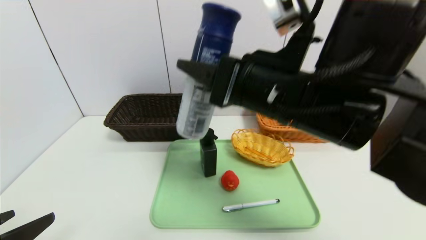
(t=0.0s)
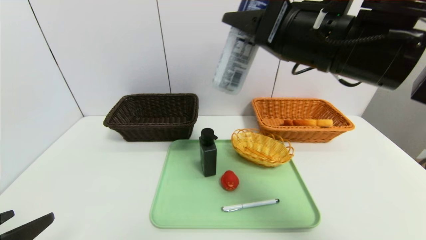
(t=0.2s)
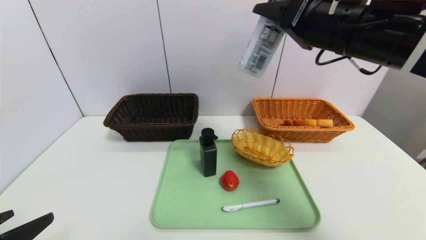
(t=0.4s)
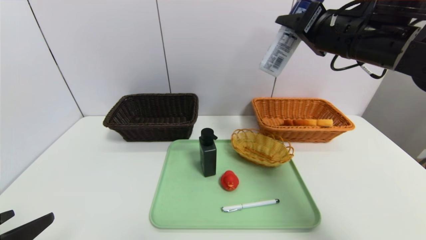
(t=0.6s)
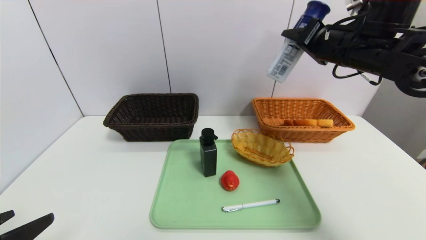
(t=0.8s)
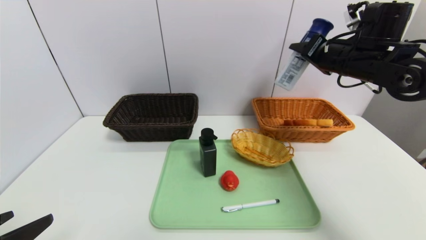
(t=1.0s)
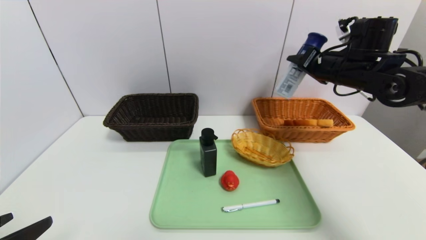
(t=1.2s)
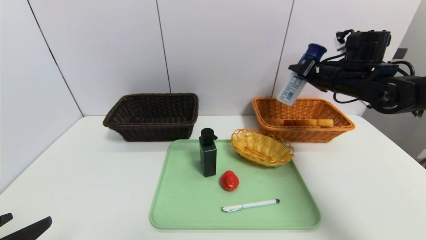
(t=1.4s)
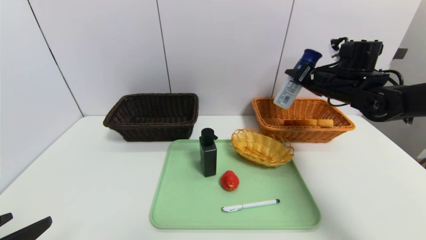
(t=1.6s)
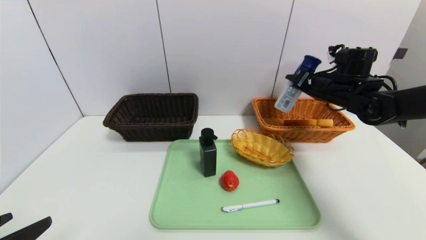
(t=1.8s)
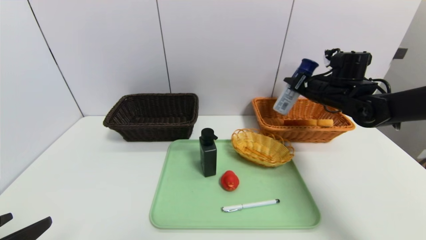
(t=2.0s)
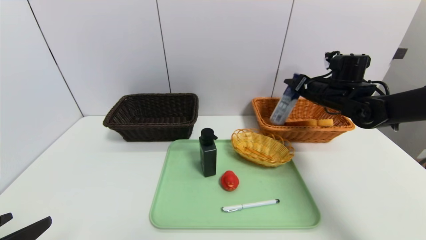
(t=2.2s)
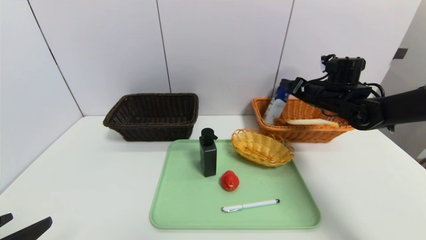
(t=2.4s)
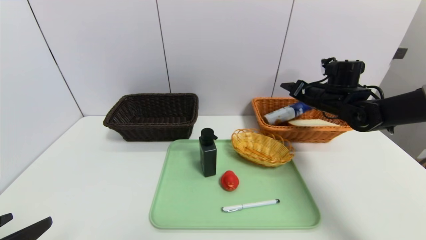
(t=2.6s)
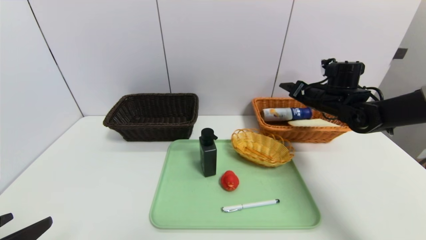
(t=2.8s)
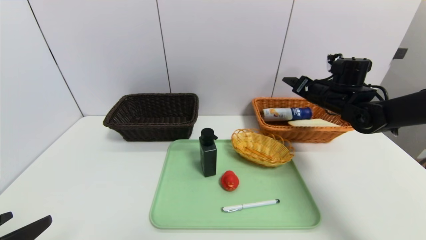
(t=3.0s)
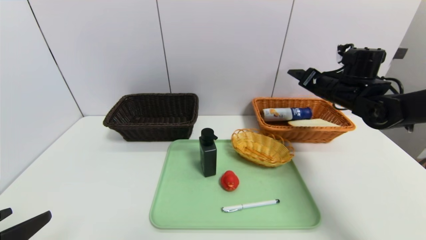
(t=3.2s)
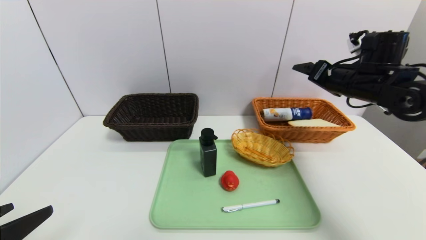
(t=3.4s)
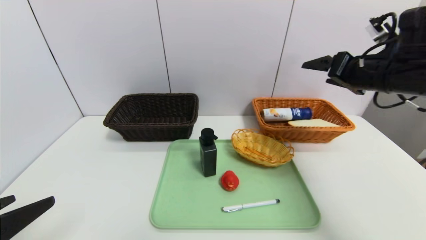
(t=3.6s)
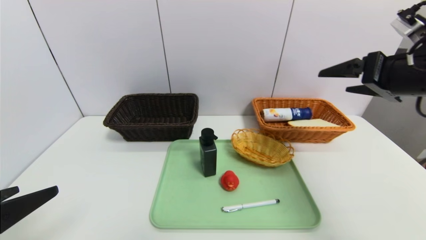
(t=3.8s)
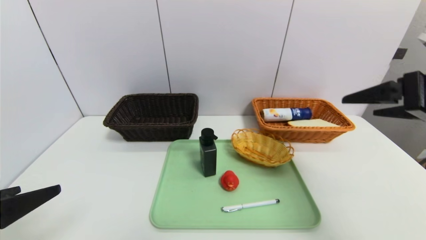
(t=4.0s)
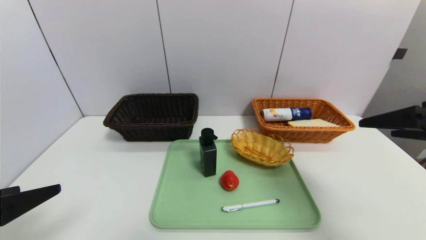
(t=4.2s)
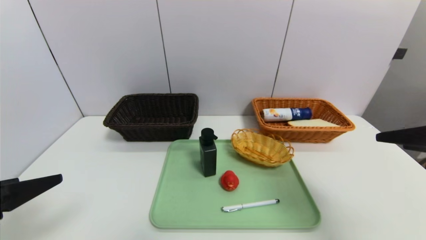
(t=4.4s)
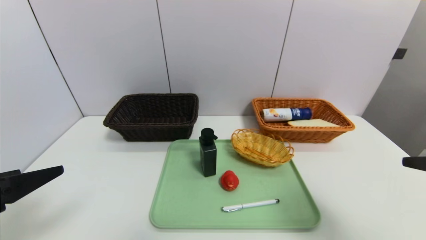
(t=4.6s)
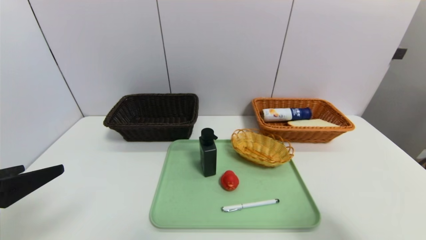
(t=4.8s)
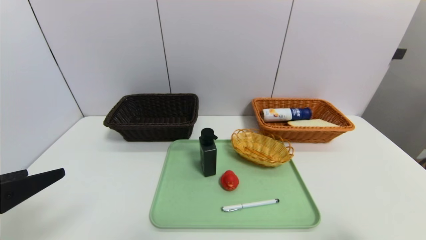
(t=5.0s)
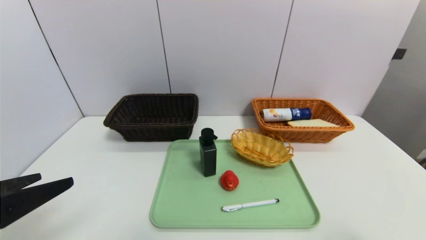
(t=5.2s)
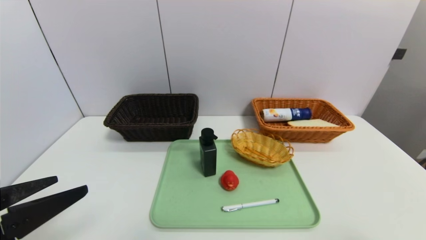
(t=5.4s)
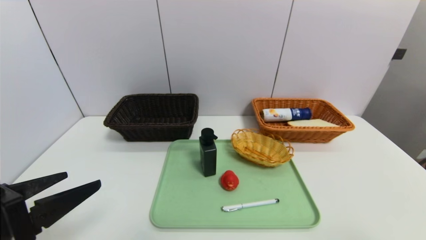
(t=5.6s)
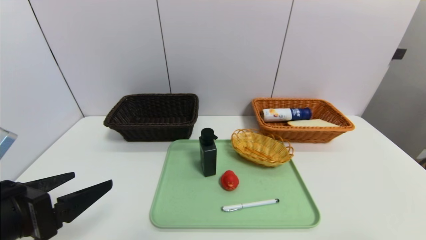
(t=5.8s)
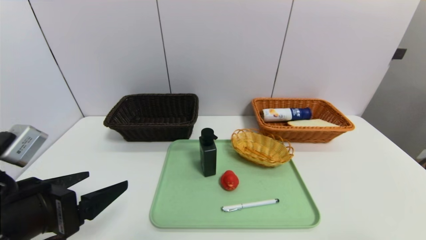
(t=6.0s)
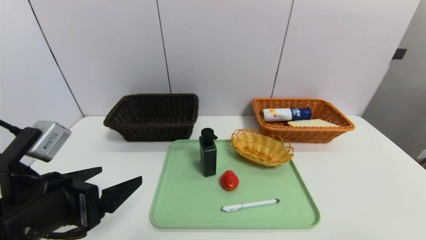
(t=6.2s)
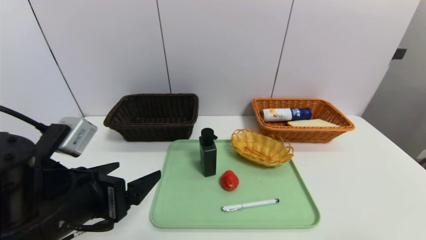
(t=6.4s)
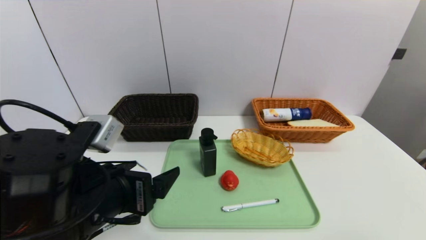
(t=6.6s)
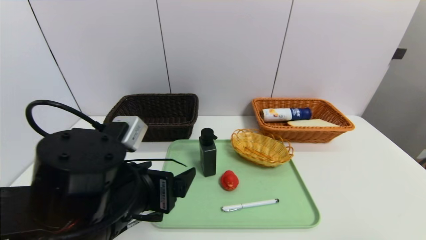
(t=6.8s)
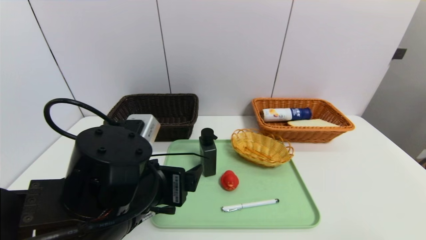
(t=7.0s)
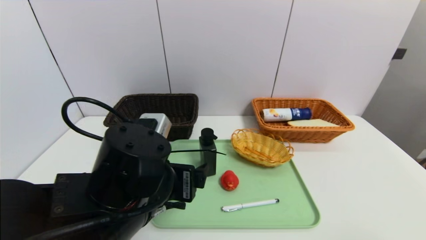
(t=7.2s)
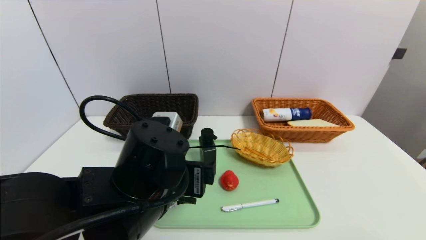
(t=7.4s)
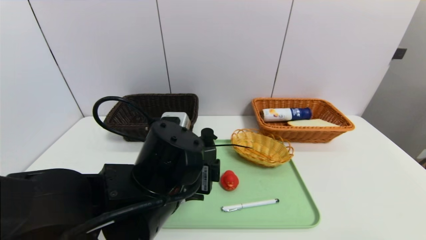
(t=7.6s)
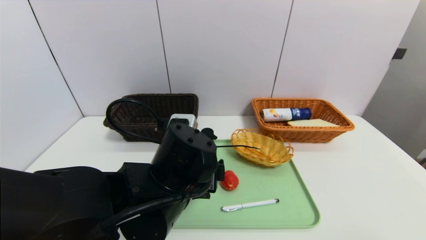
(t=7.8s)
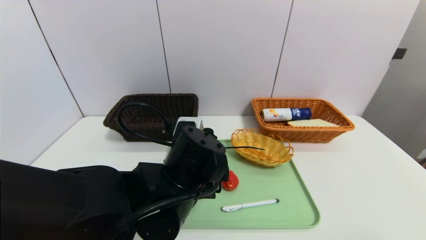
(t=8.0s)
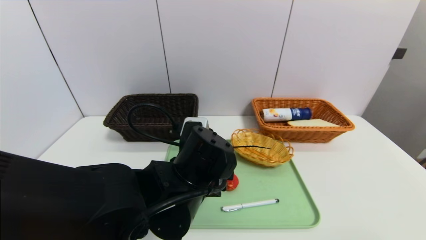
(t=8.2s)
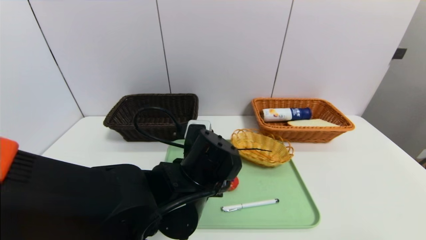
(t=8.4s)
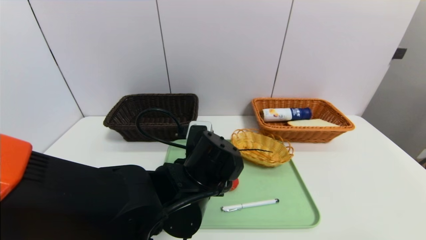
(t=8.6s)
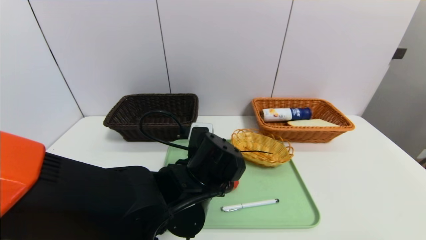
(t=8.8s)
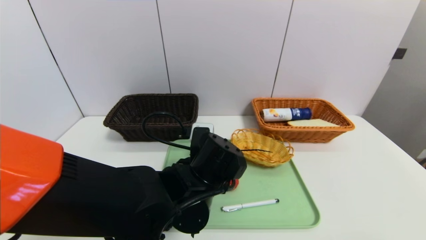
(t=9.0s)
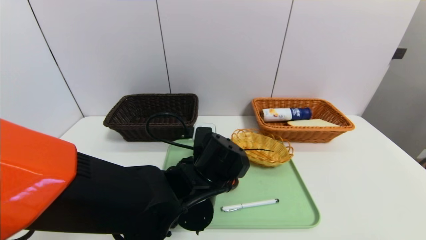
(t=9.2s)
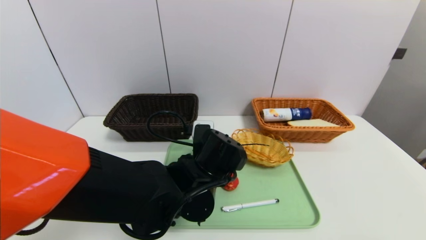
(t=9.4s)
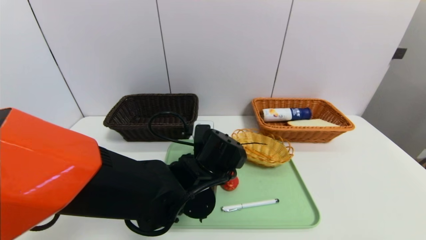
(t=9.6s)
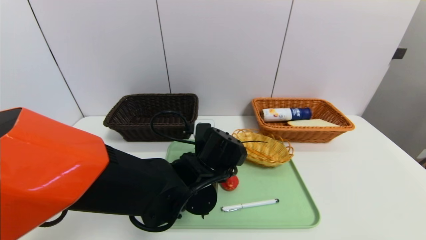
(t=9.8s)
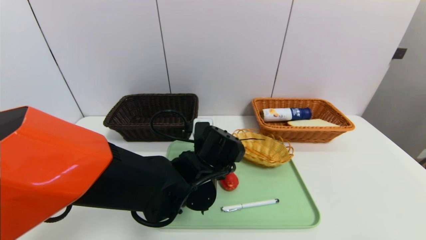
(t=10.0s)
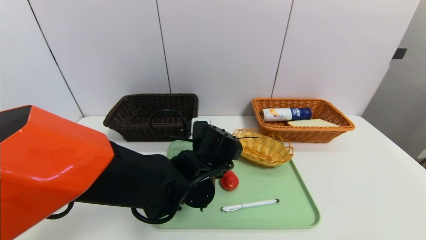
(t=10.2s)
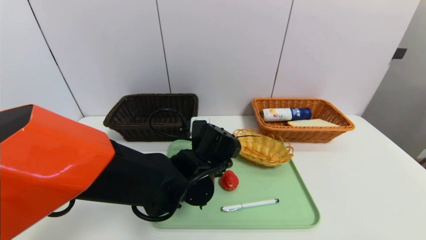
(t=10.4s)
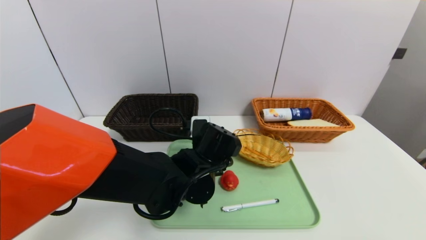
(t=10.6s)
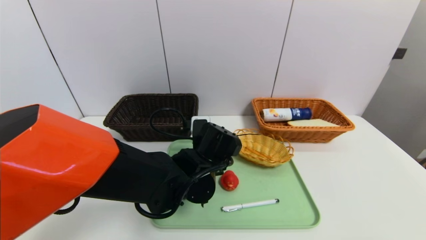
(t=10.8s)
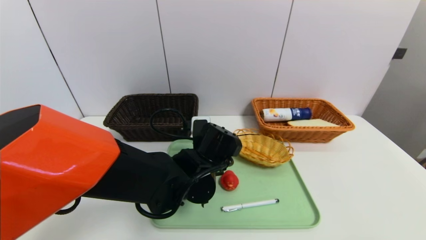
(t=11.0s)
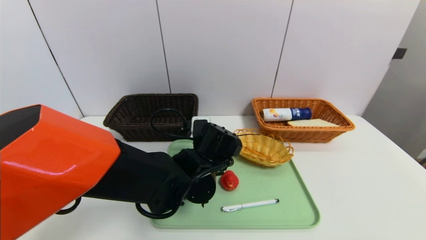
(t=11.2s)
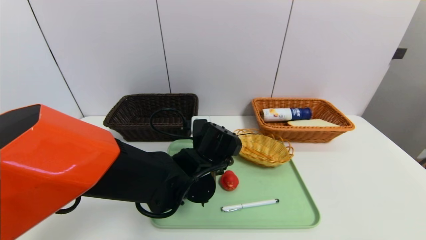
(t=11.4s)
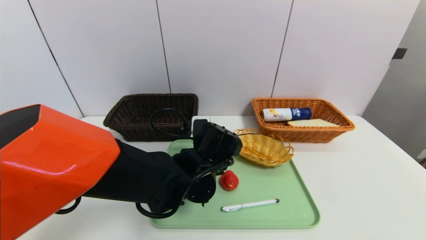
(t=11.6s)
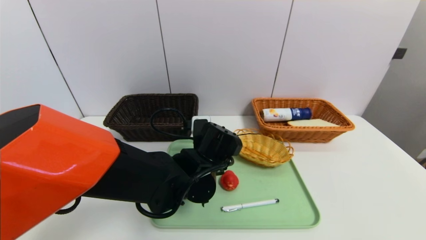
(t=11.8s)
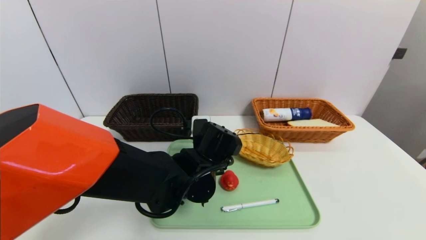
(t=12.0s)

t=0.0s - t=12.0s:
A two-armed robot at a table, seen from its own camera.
Task of the whole recording: place the food in the right basket with the right gripper, and place the non food items in the left basket with the left gripper.
Step, t=0.0s - t=2.8s: Grasp the yogurt and put it in the right basket.
t=0.0s - t=1.6s: The right gripper shifts some 25 cm forward and to the right.
t=1.6s - t=3.0s: The right gripper opens.
t=3.0s - t=4.4s: The right gripper travels backward by some 30 cm, while the left gripper travels upward by roughly 5 cm.
t=4.4s - t=6.0s: The left gripper goes roughly 5 cm to the right. Meanwhile the right gripper is displaced backward and downward by roughly 15 cm.
t=6.0s - t=7.6s: The left gripper goes some 20 cm to the right and forward.
t=7.6s - t=9.0s: The left gripper shifts by approximately 10 cm.
t=9.0s - t=10.4s: The grippers make only small movements.
t=10.4s - t=12.0s: The left gripper closes its fingers.

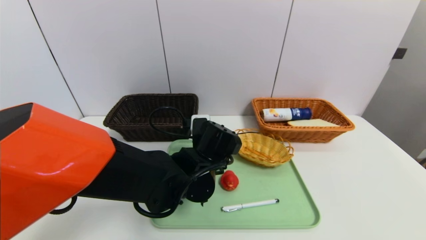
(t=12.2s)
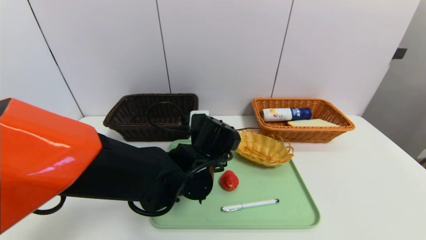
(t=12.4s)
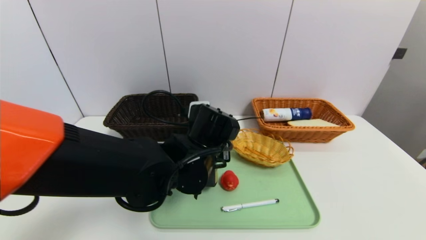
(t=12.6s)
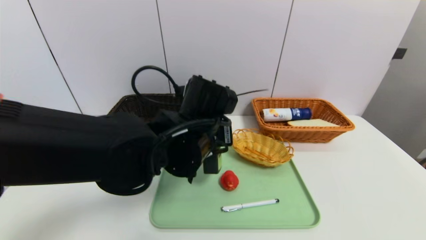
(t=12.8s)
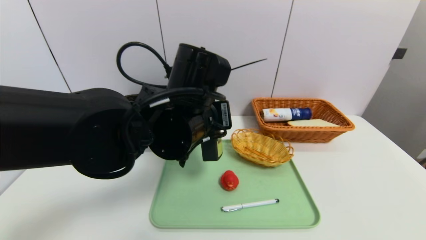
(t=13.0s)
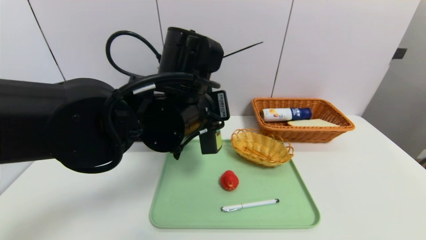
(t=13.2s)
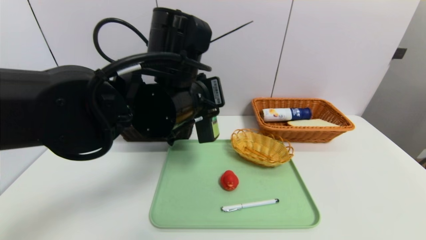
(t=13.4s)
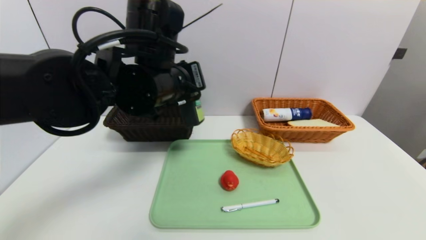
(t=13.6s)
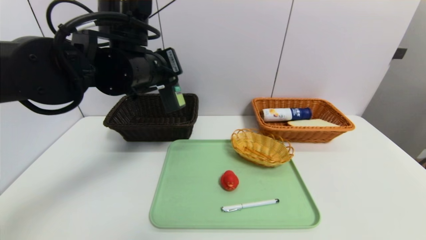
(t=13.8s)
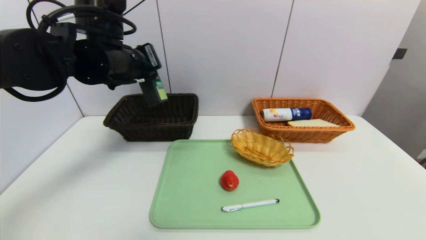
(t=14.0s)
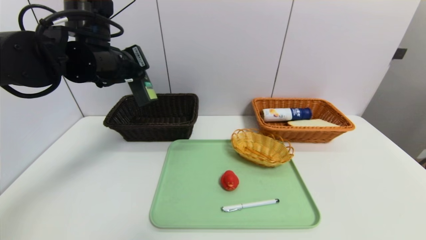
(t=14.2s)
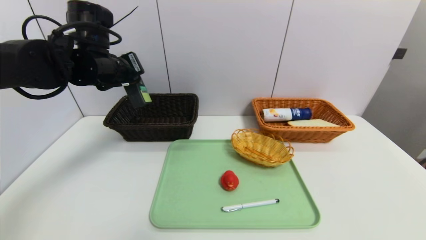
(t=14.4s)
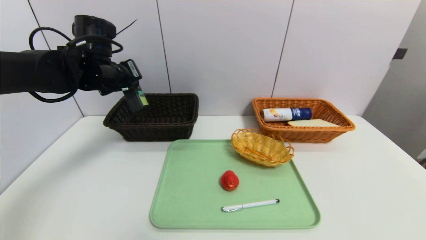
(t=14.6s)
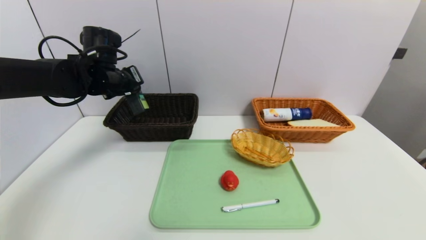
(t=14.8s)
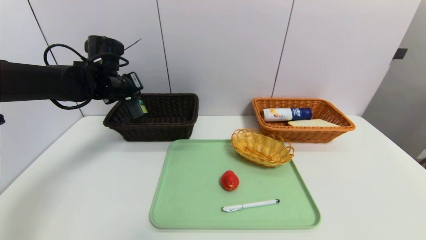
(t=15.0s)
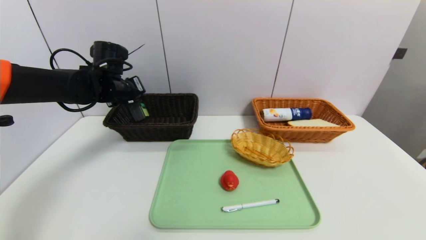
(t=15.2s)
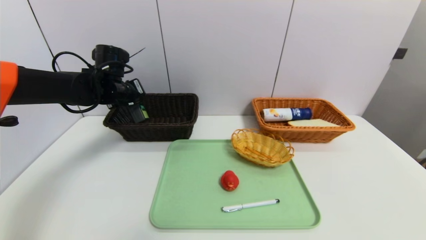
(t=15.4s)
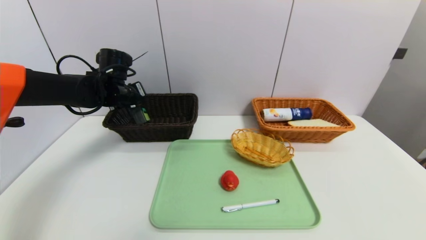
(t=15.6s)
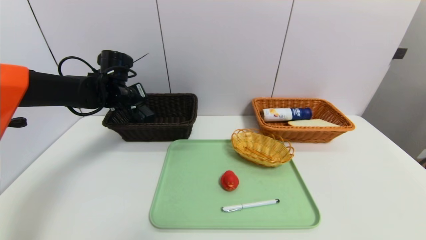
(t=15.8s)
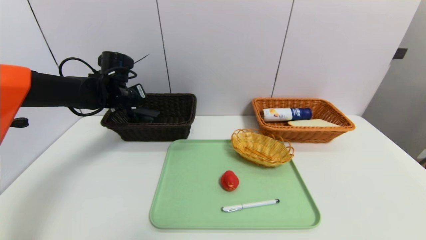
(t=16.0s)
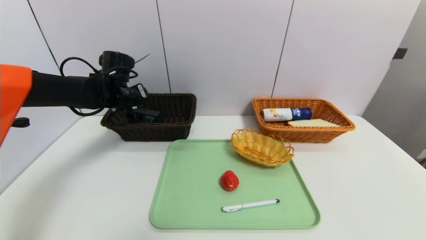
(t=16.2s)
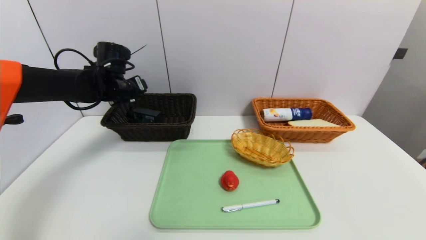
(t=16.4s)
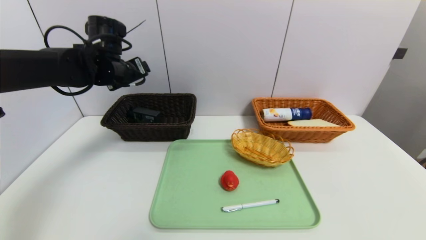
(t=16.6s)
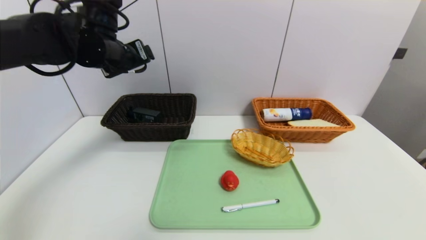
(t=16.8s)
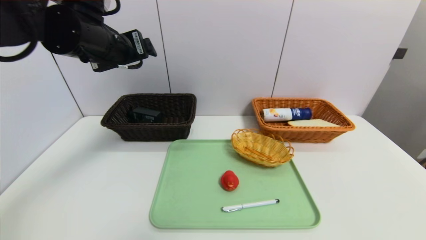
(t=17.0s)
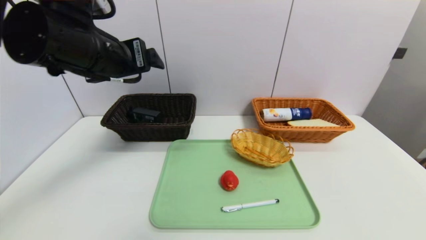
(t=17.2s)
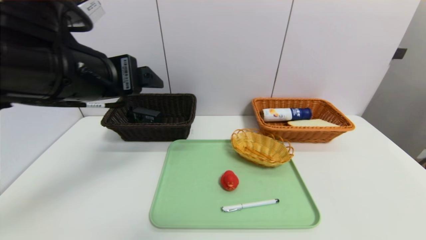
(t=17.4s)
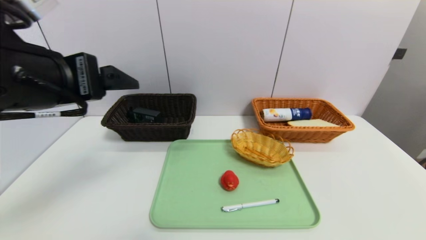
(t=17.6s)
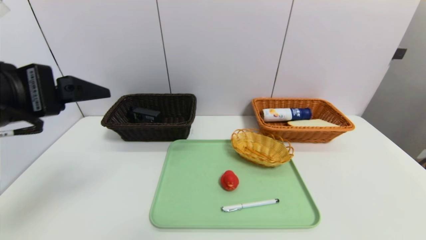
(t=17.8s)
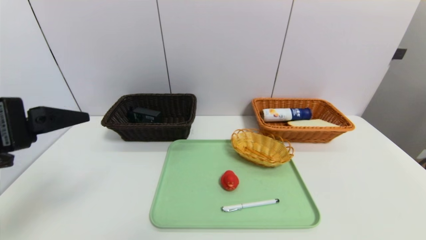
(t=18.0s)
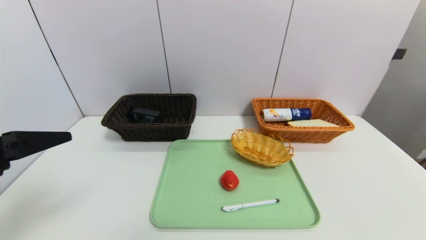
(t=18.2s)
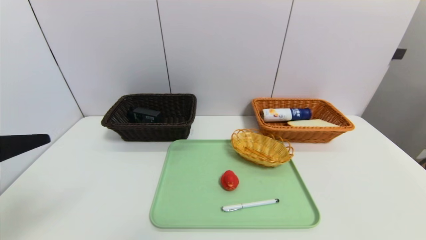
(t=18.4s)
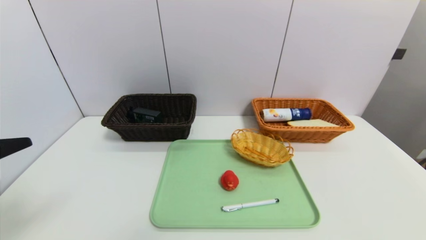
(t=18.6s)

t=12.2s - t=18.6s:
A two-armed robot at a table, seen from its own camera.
Task of the whole recording: place the food in the right basket with the right gripper, and place the non food items in the left basket with the left gripper.
Step, t=12.2s - t=16.4s: Grasp the hard cleanser and put it in the left basket.
t=12.2s - t=13.8s: The left gripper heads upward and to the left, covering about 20 cm.
t=13.8s - t=15.4s: The left gripper moves forward, to the left and downward, some 20 cm.
t=15.4s - t=17.0s: The left gripper shifts some 15 cm upward, backward and to the right, and opens up.
t=17.0s - t=18.6s: The left gripper travels backward and to the left by approximately 25 cm.
